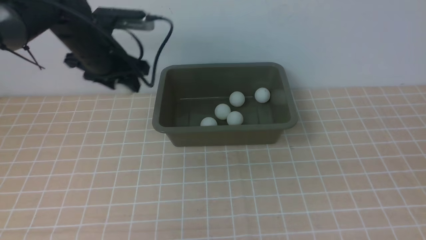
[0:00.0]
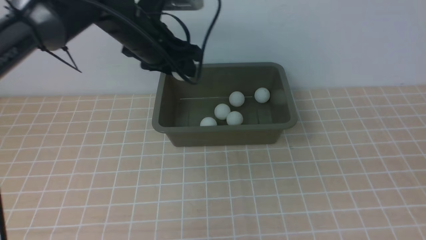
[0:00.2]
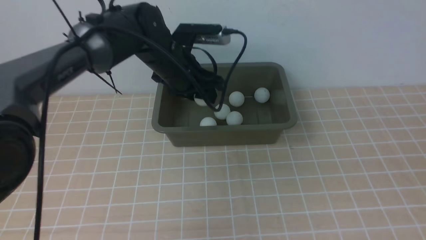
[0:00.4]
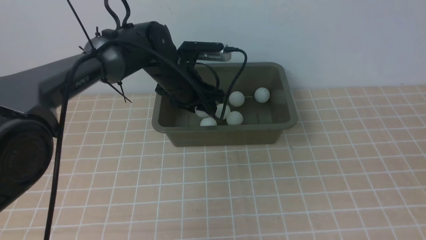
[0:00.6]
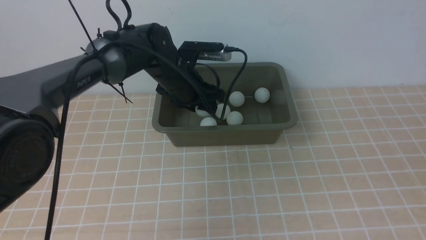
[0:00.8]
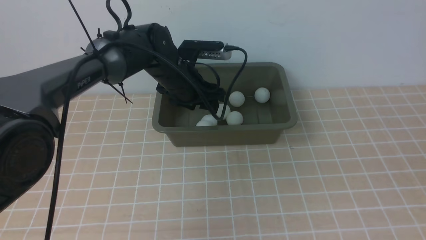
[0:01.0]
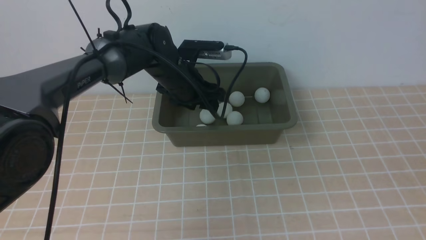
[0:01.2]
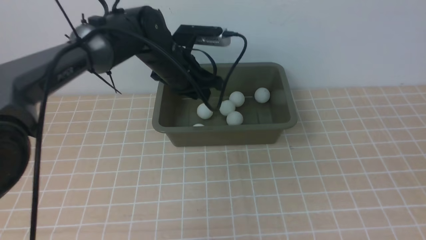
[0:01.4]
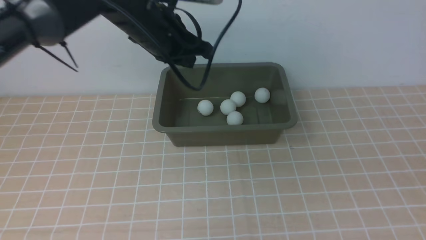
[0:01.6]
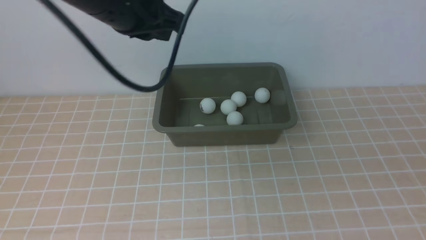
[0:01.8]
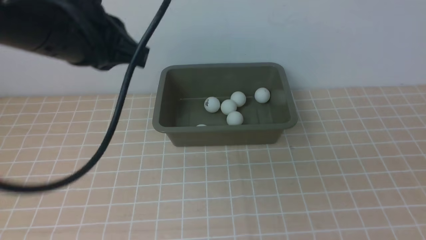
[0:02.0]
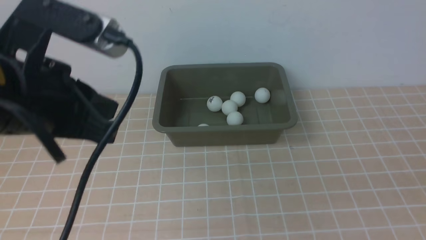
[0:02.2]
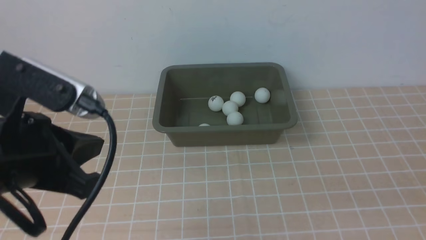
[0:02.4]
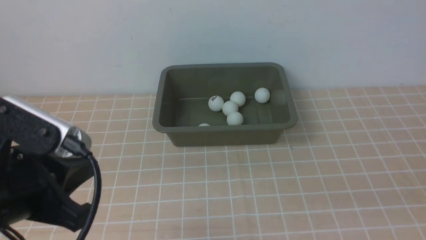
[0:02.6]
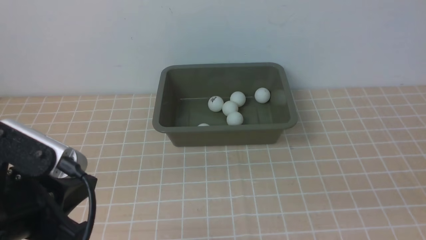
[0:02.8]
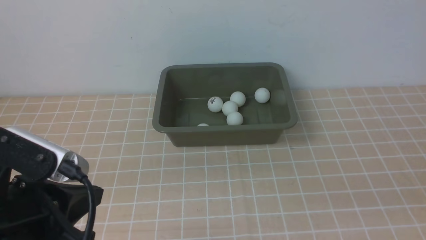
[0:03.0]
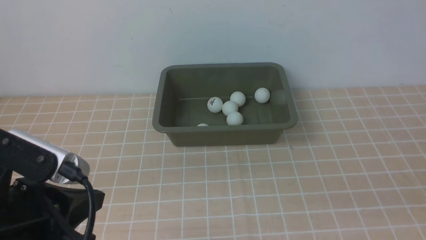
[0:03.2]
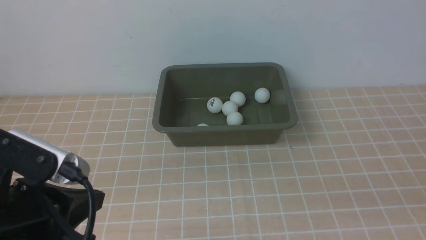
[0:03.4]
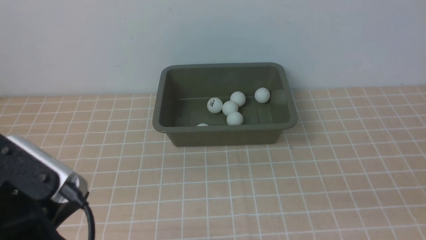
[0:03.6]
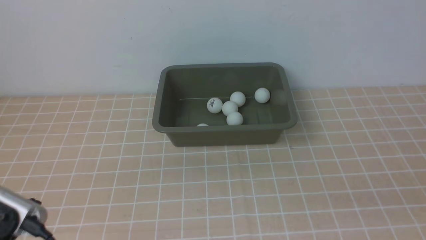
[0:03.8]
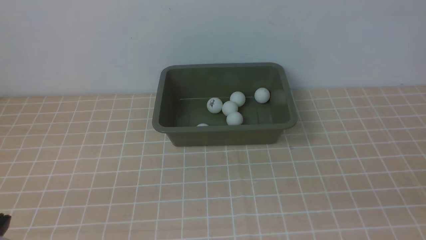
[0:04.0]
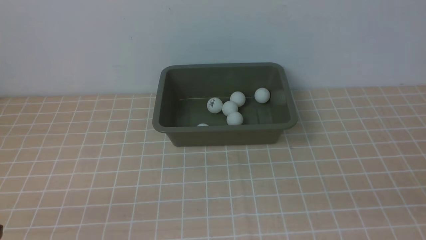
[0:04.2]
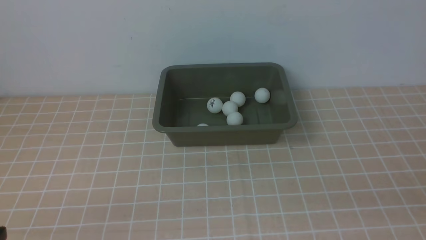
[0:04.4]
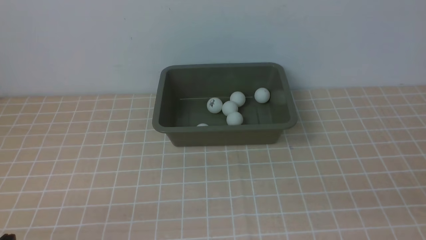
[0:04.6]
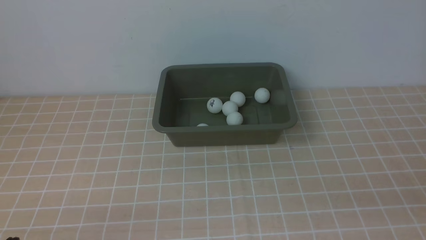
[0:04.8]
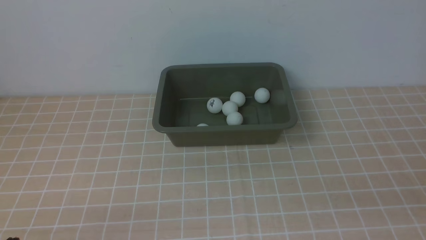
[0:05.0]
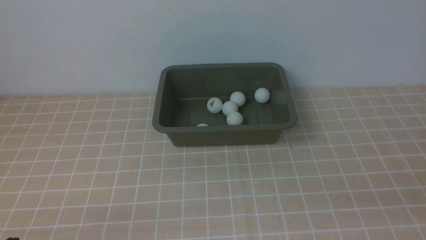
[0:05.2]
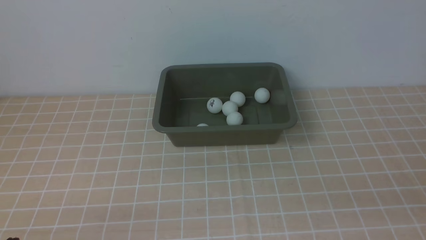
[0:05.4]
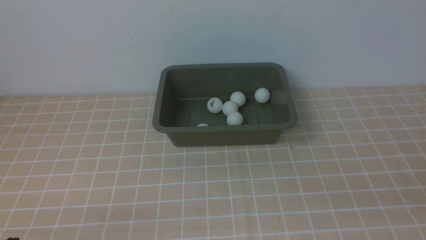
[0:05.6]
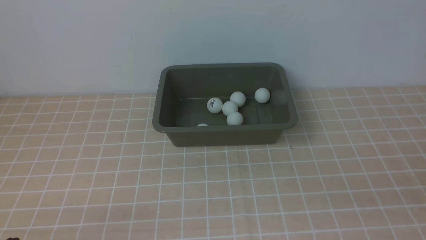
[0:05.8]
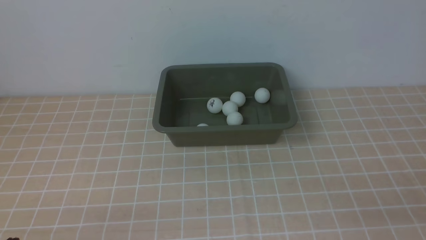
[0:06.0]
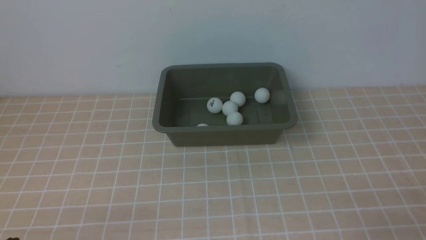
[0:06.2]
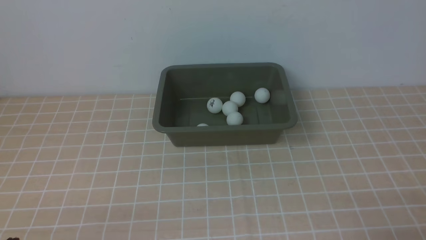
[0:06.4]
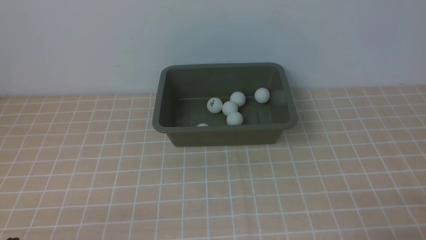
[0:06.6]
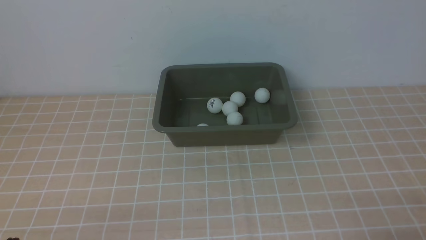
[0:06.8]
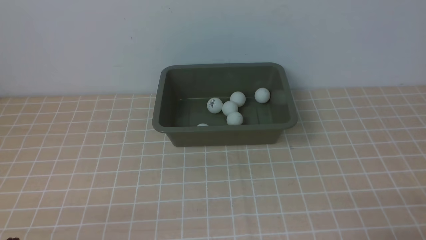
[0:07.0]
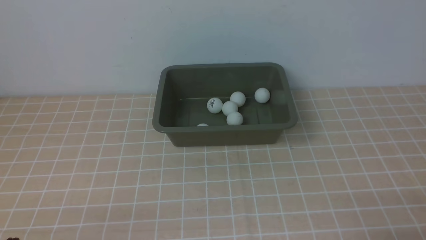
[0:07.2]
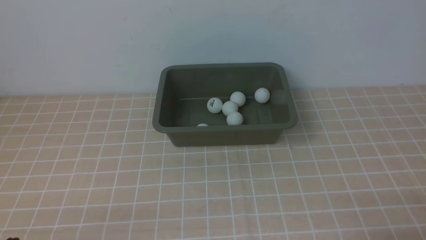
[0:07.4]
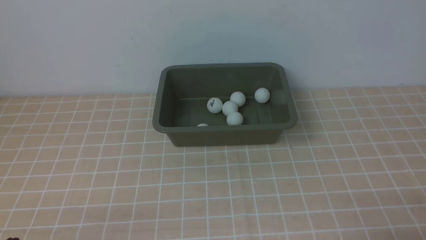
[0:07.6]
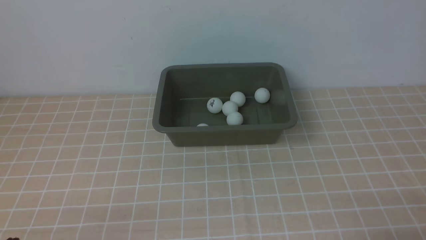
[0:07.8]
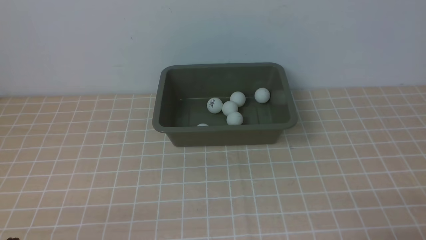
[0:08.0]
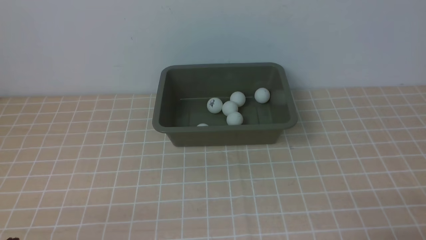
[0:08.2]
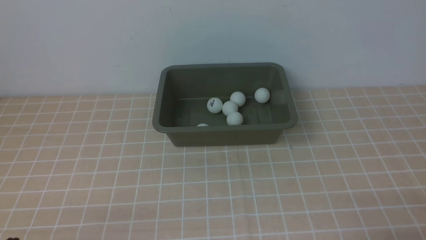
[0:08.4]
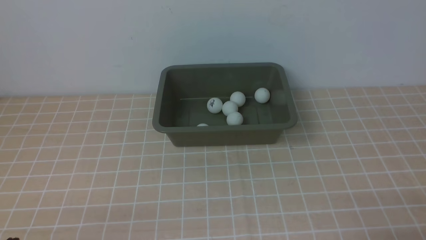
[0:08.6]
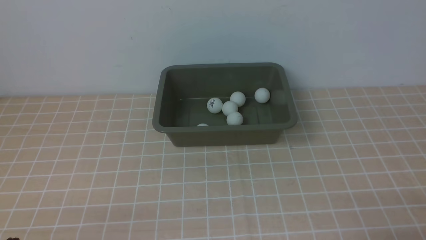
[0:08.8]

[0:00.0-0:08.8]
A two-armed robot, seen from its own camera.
Step, 0:00.0 to 0:01.2: use the left arm to put the table tennis ball into the box.
0:00.0 to 0:01.4: The left gripper goes about 10 cm to the right.
0:01.4 to 0:03.0: The right gripper shifts roughly 10 cm downward; the left gripper shifts approximately 30 cm backward, and closes up.
0:03.0 to 0:04.4: The left gripper goes approximately 15 cm downward, backward and to the left.
0:07.4 to 0:08.8: Both grippers stay put.
